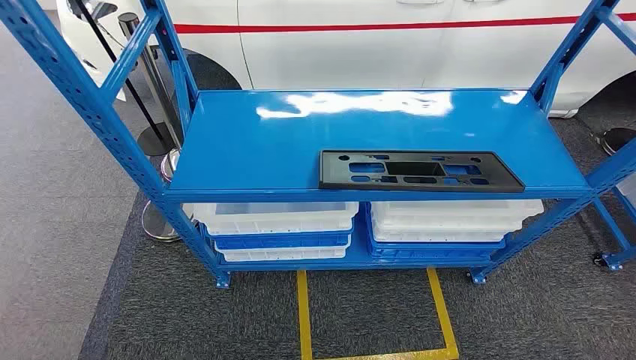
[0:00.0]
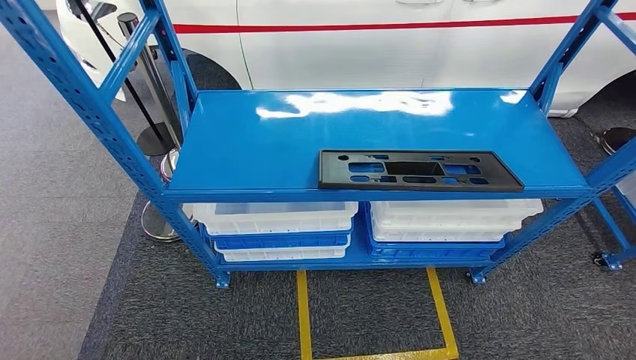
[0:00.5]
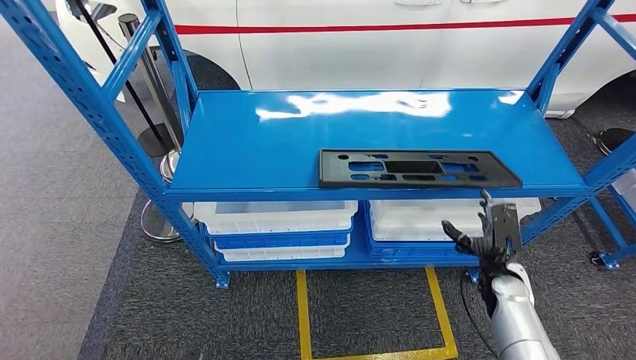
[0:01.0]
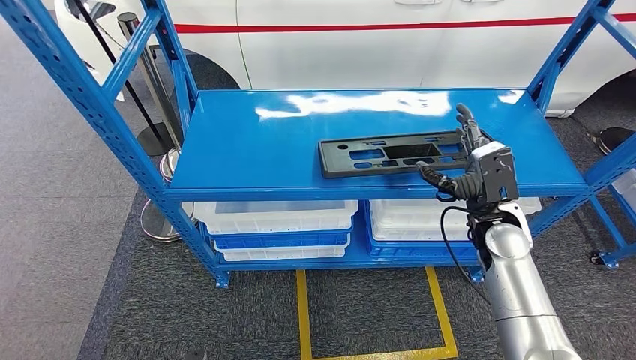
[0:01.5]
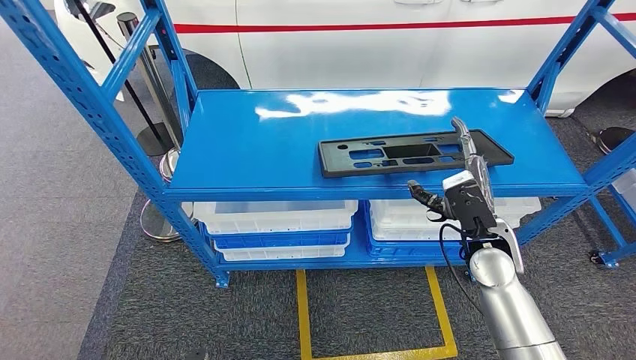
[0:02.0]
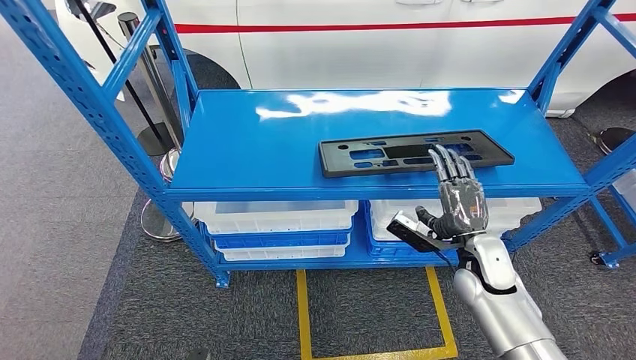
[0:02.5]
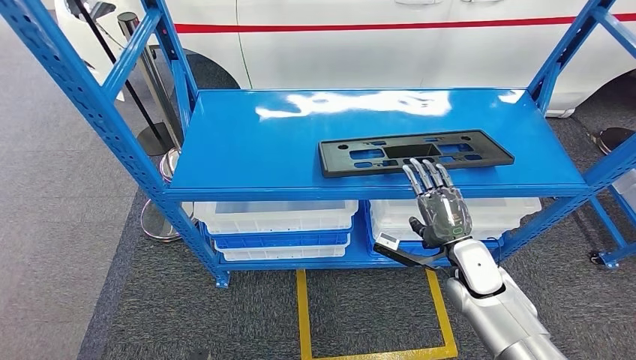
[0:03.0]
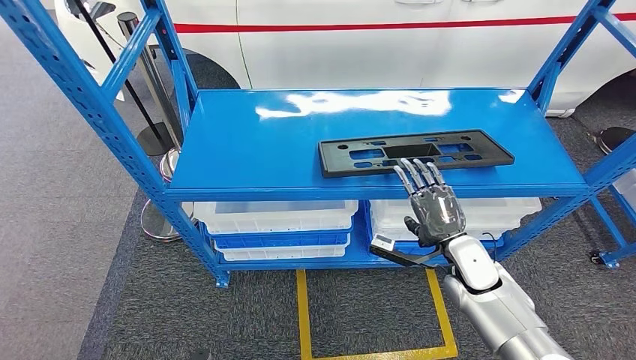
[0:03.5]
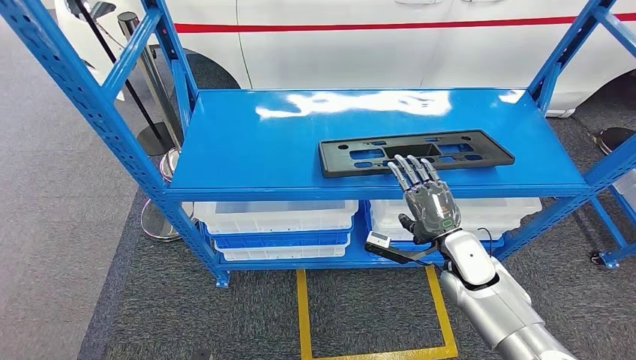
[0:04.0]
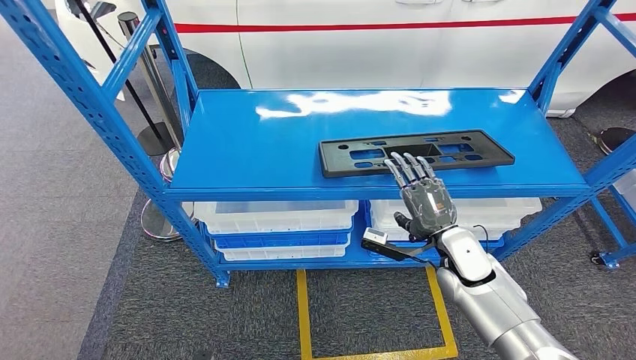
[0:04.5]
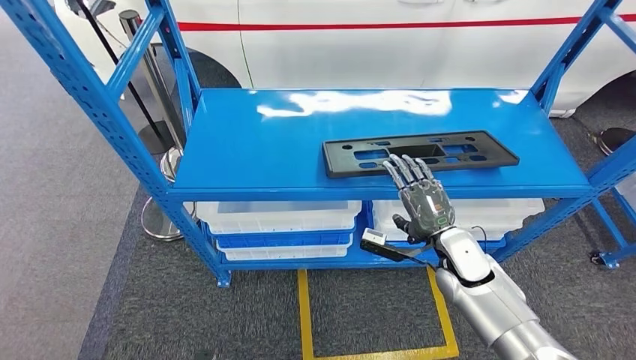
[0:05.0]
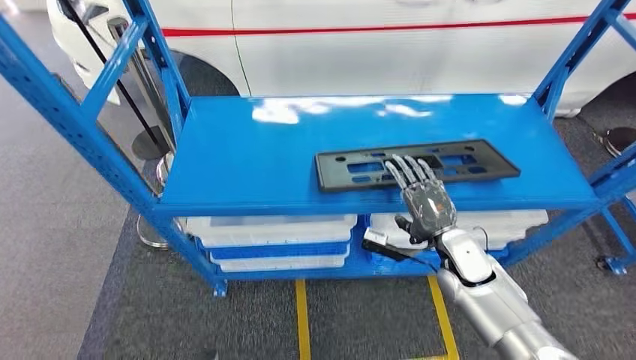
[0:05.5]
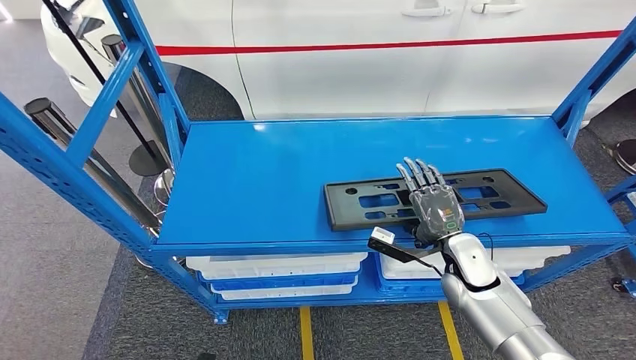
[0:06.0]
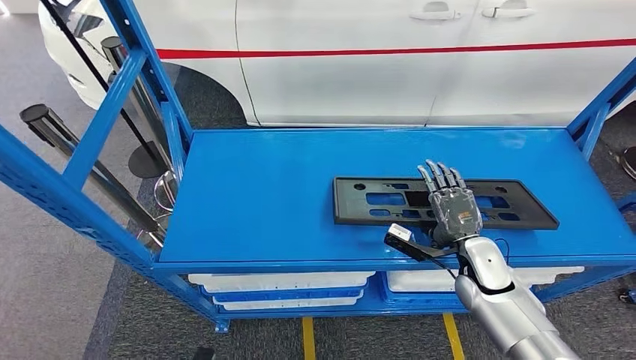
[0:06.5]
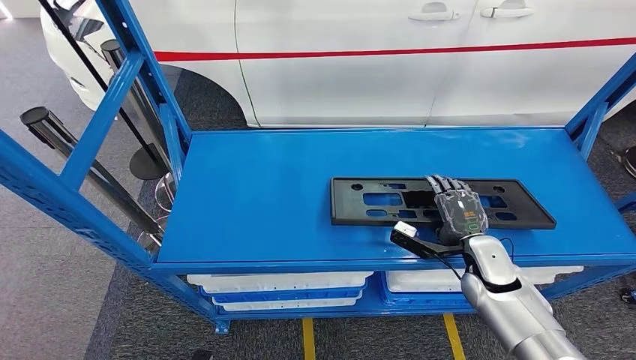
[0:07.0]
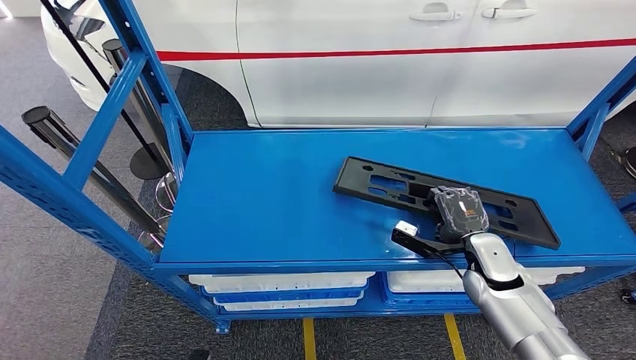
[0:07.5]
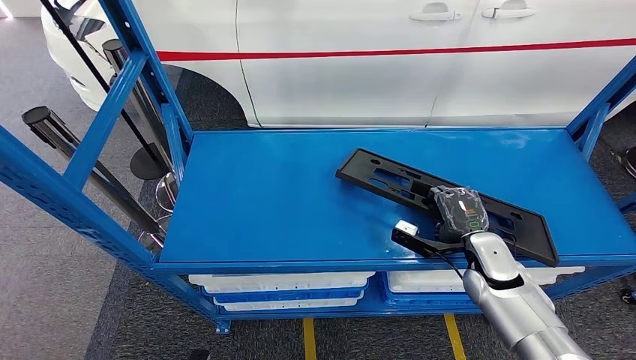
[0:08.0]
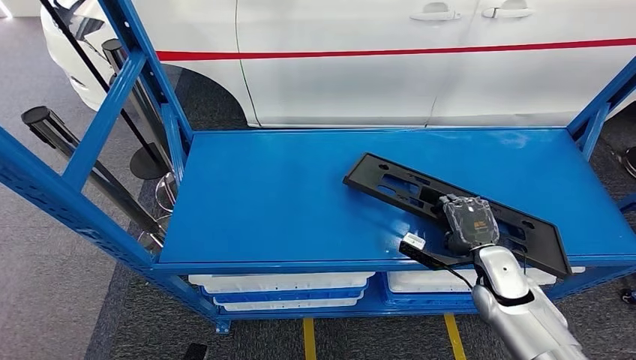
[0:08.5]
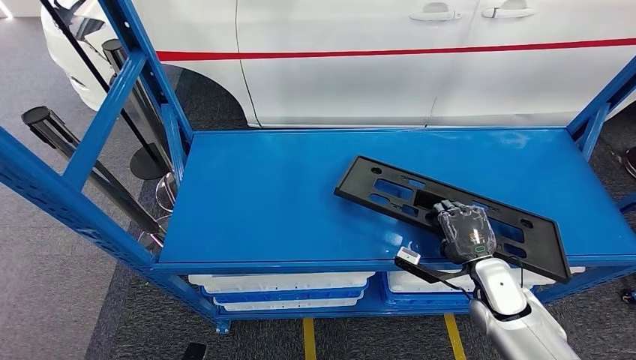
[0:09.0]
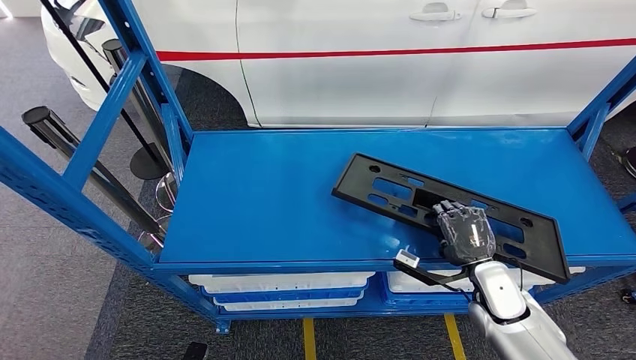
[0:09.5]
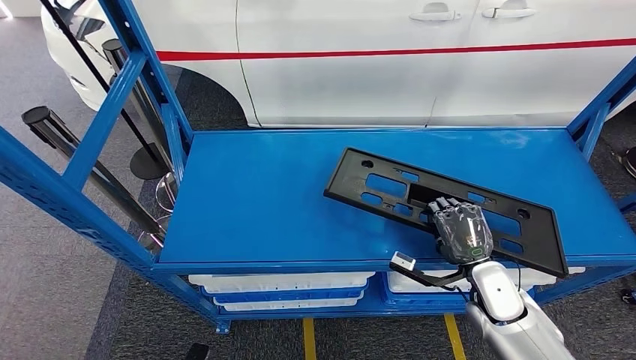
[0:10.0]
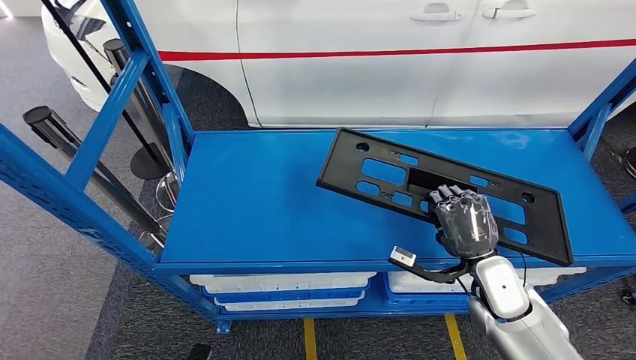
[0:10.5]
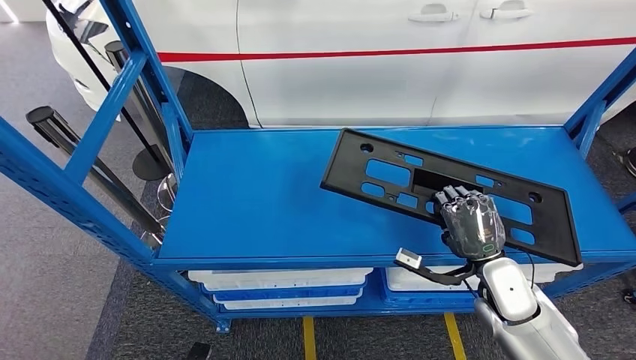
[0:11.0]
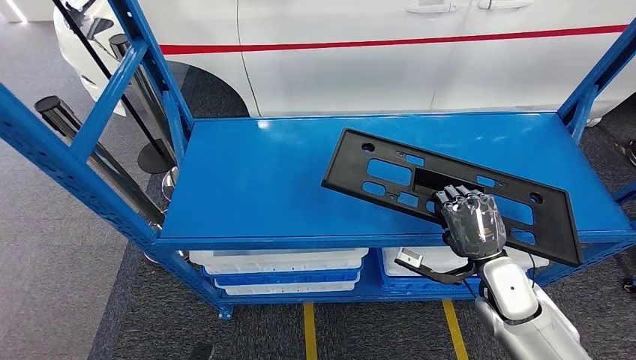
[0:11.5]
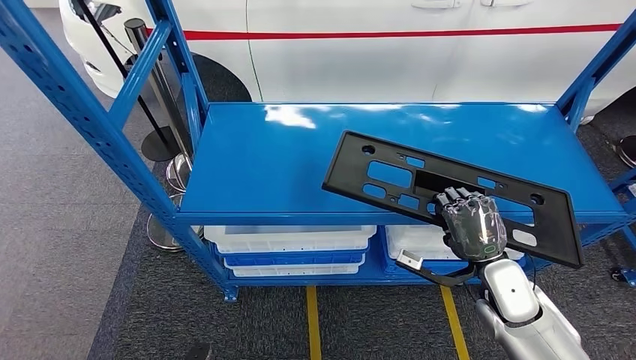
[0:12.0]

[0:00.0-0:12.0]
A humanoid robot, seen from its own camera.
Step, 0:00.0 to 0:10.5: Pick up the large parts from the shelf.
0:02.0 to 0:04.0: The right hand travels downward by approximately 5 cm.
0:08.0 to 0:10.0: The hands stay close to where they were, moving slightly.

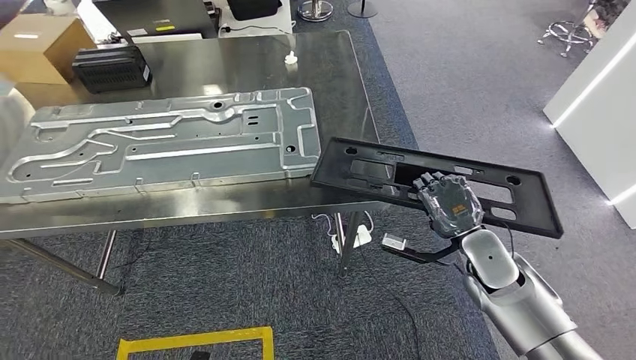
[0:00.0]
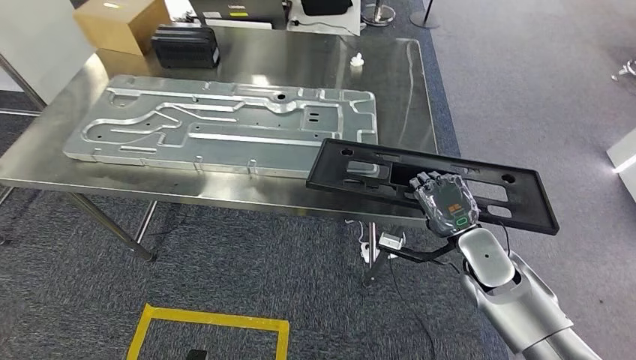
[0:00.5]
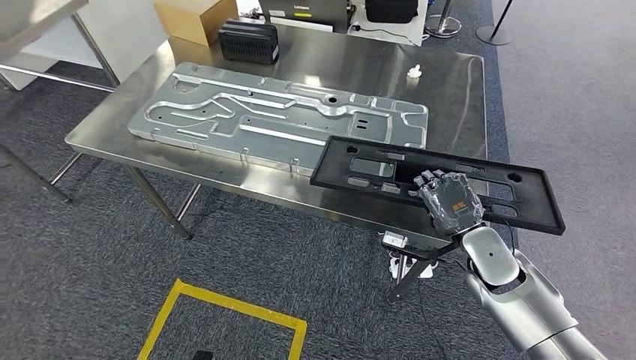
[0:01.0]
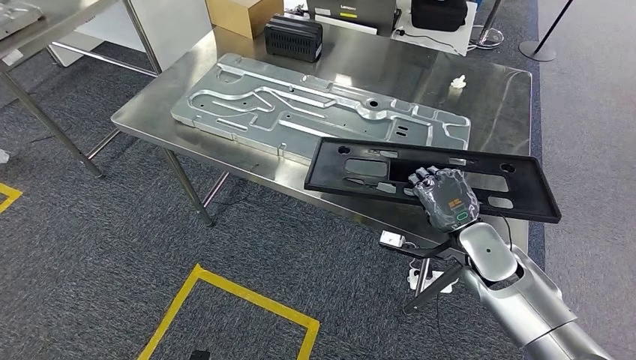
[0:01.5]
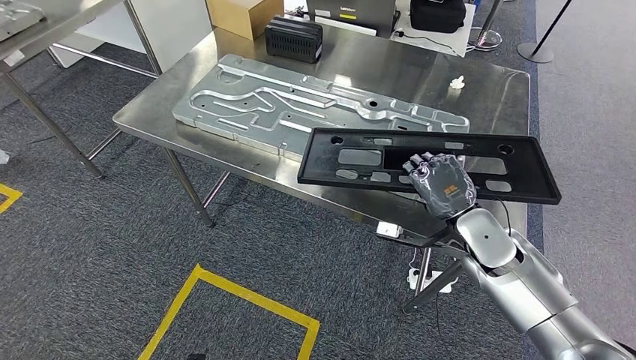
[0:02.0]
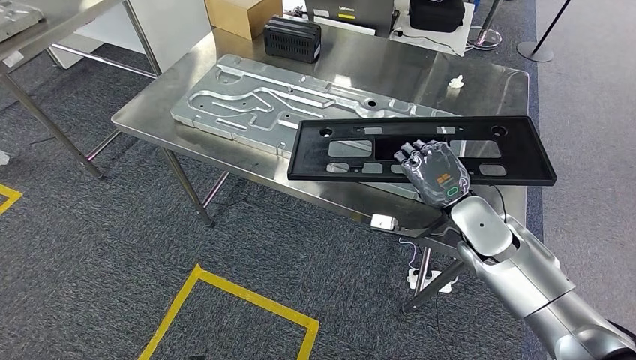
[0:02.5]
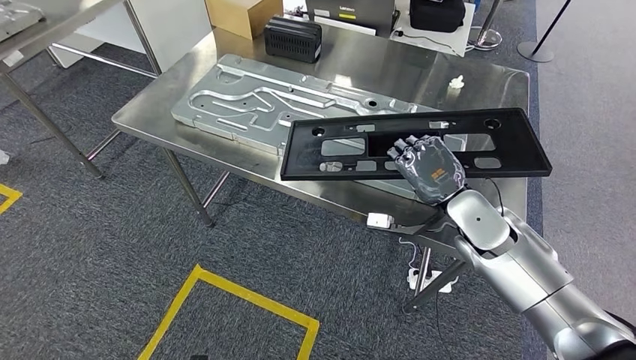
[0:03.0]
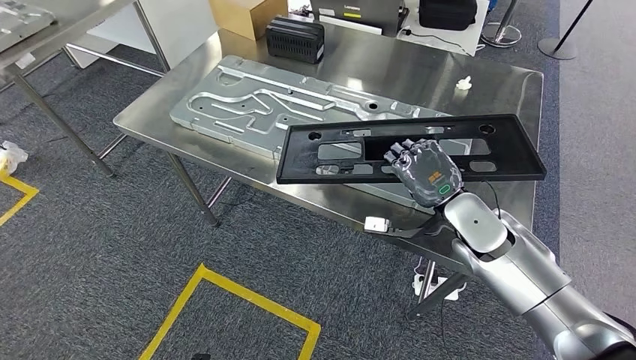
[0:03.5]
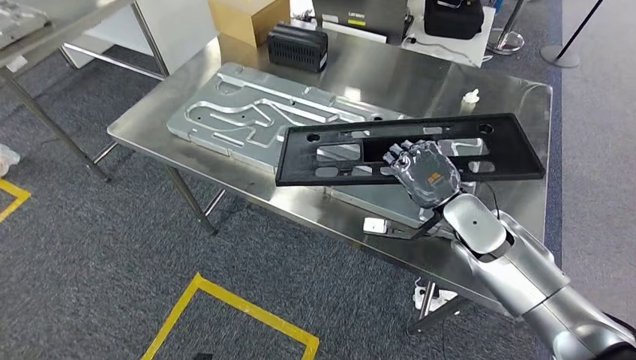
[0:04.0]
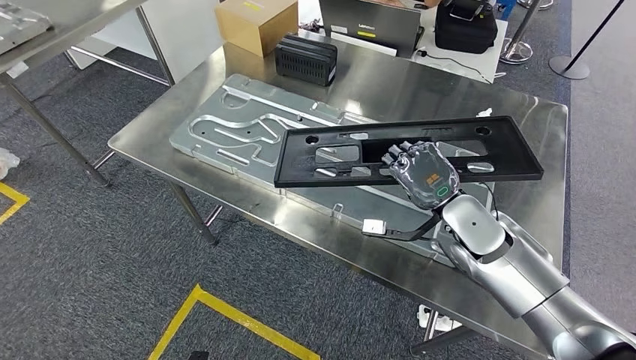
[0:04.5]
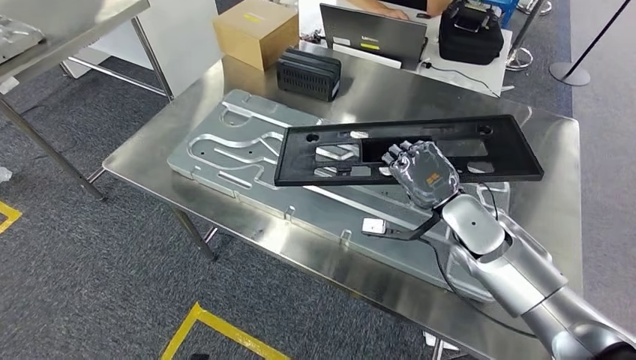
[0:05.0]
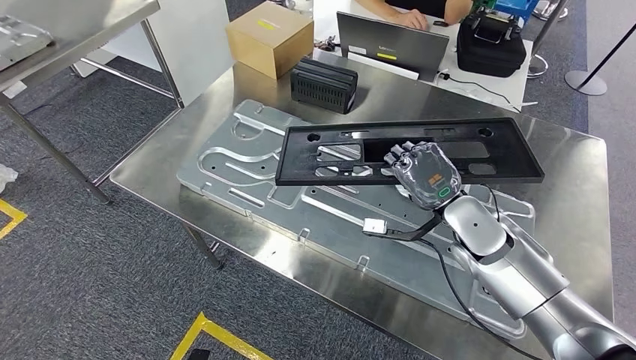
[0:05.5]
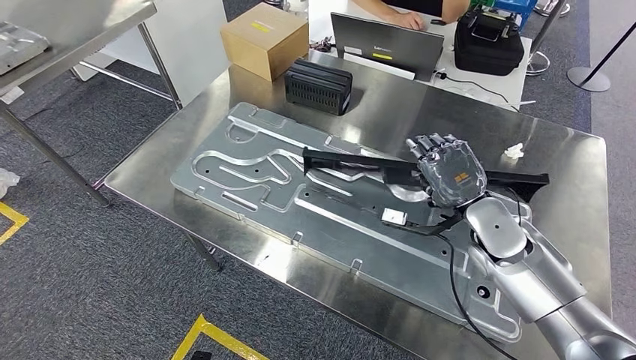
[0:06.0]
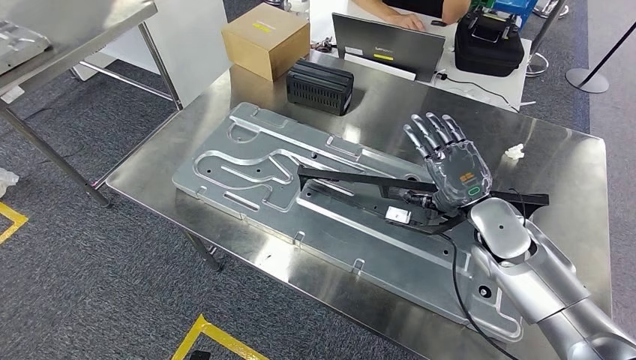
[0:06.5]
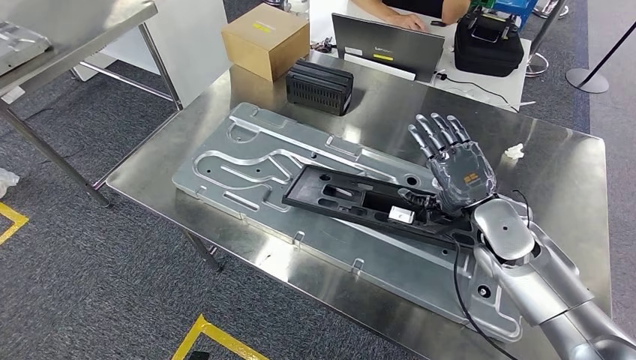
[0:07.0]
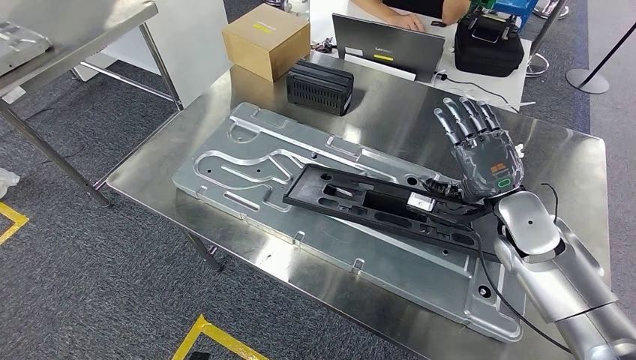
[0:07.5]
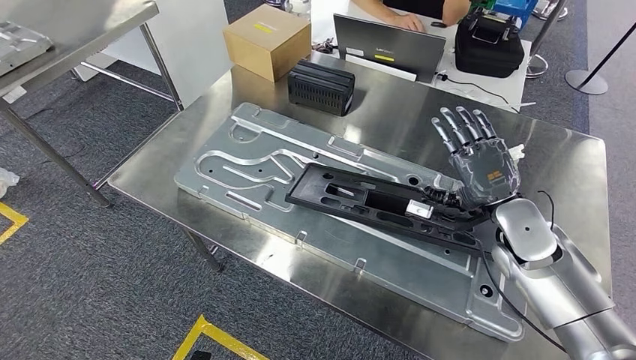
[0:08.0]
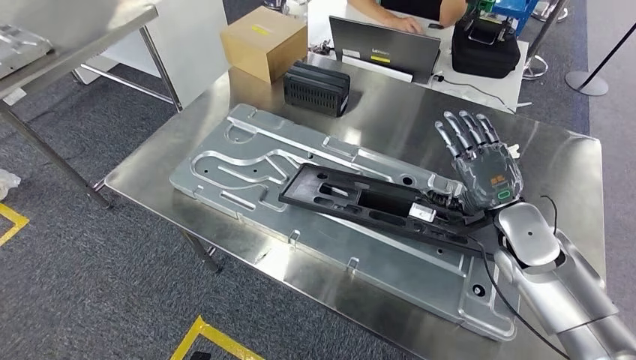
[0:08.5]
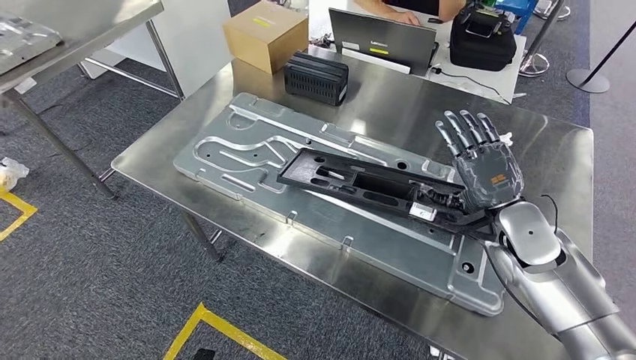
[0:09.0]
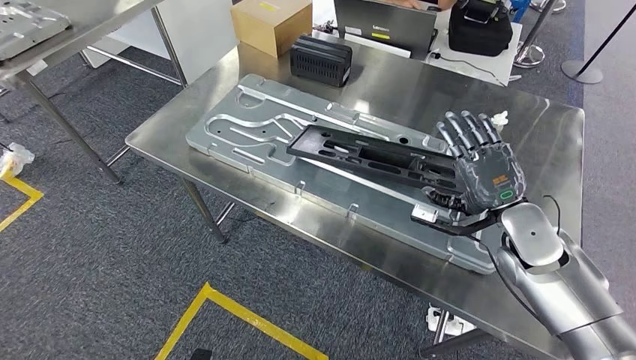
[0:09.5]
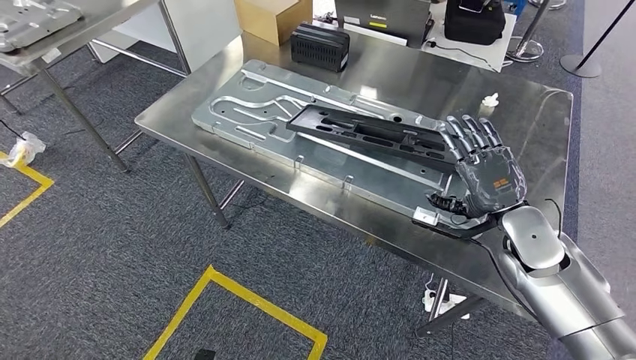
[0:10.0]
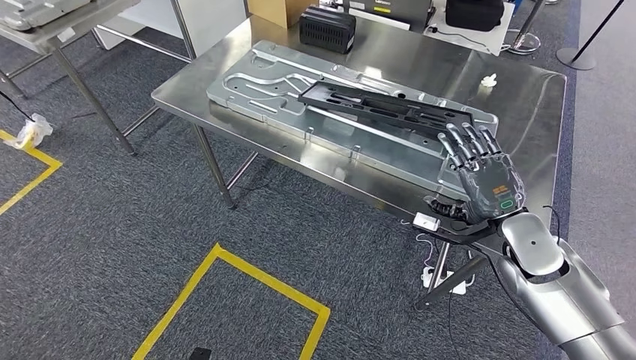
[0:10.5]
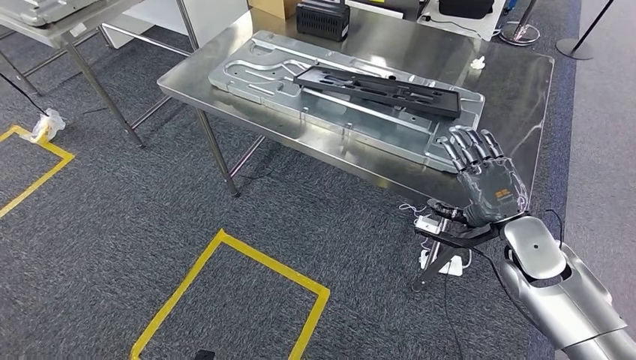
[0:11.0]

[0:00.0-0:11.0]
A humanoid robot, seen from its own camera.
Step, 0:02.0 to 0:07.0: Insert the large parts into the corresponding slots on the workbench.
